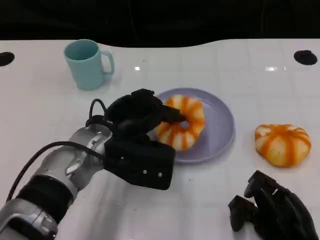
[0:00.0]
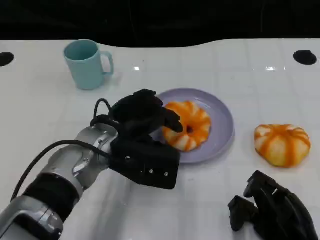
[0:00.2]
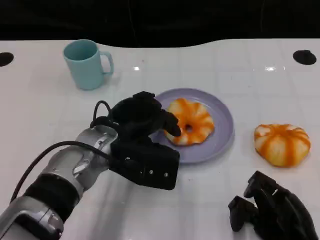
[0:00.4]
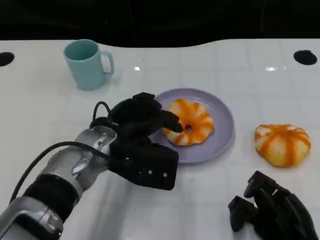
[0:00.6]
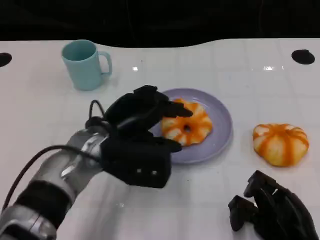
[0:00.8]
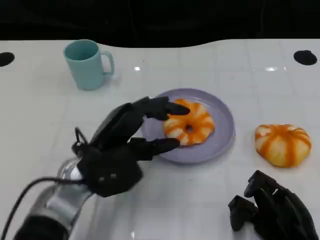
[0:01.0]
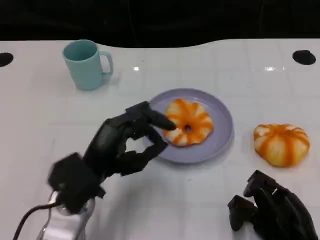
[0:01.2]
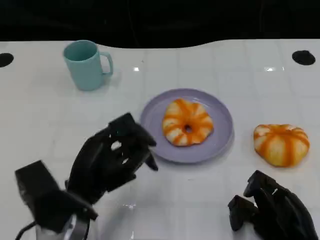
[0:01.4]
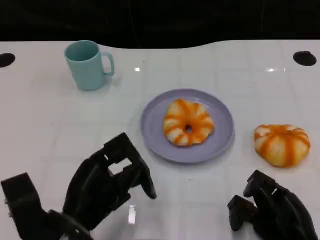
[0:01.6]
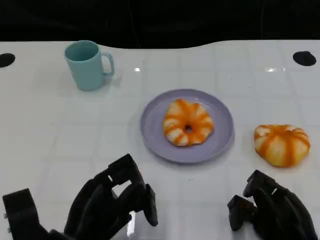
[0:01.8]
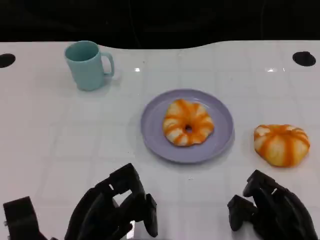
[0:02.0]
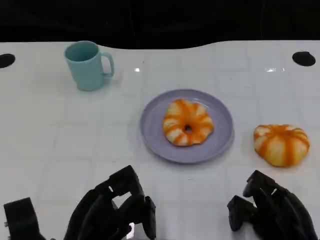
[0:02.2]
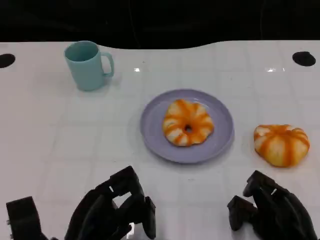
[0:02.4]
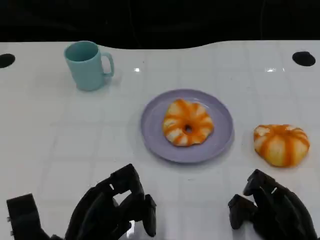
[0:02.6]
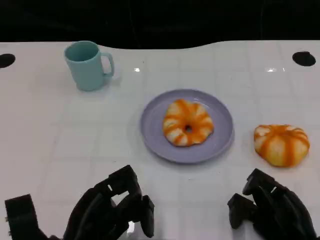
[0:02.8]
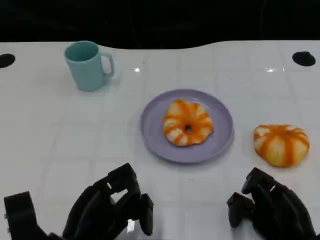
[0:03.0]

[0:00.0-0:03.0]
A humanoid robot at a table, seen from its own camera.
Task of the whole recording: Grasp the bread from the table and place it into the plate.
0:00.0 to 0:01.6: The left hand travels backward, to the left and downward by about 15 cm.
0:01.6 to 0:03.0: The hands make only small movements.

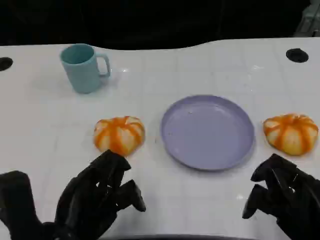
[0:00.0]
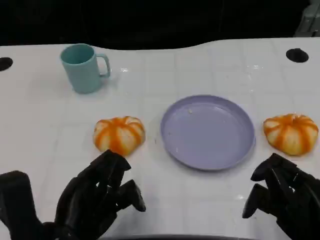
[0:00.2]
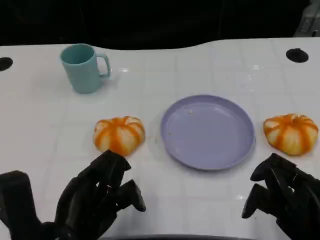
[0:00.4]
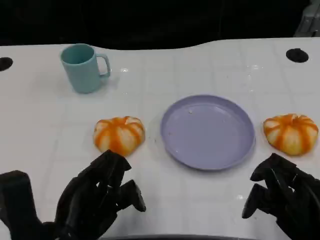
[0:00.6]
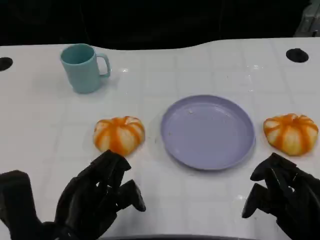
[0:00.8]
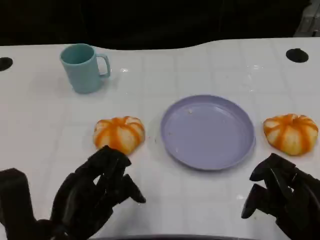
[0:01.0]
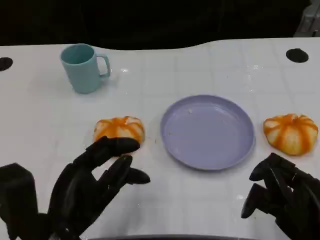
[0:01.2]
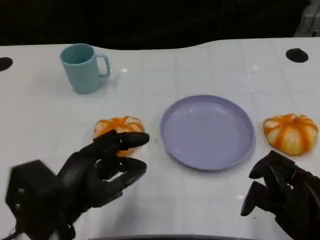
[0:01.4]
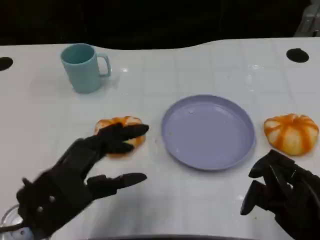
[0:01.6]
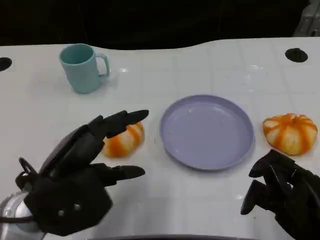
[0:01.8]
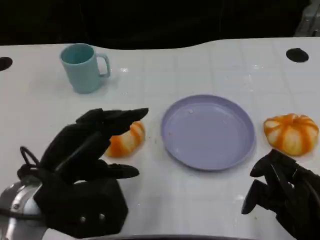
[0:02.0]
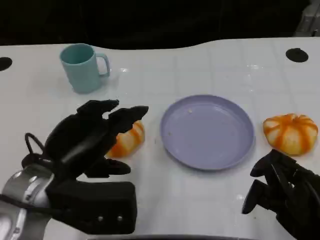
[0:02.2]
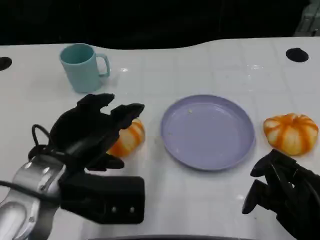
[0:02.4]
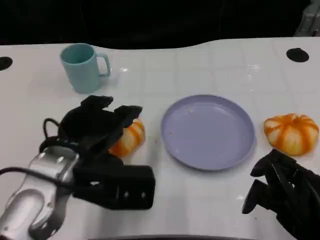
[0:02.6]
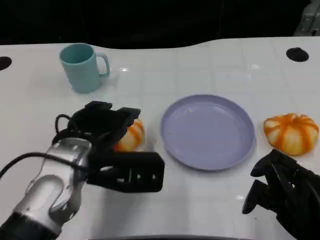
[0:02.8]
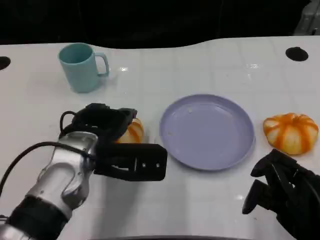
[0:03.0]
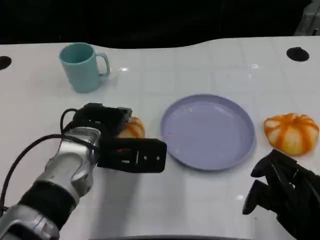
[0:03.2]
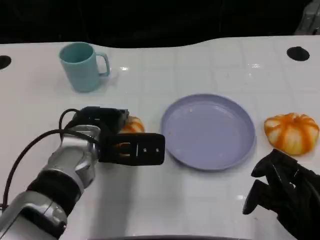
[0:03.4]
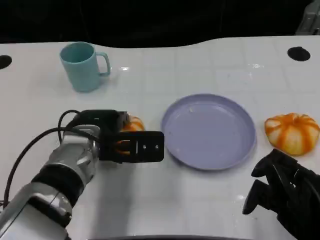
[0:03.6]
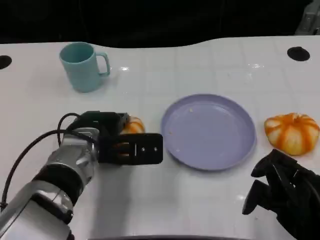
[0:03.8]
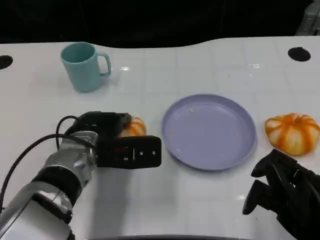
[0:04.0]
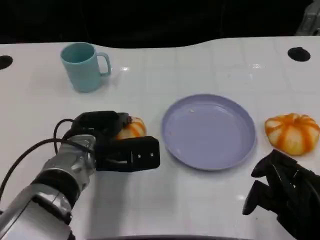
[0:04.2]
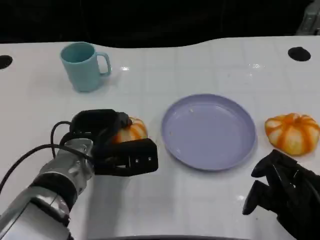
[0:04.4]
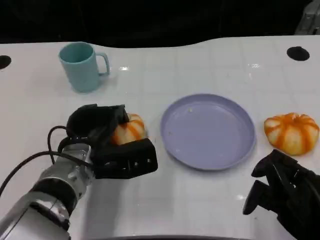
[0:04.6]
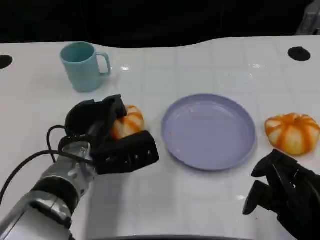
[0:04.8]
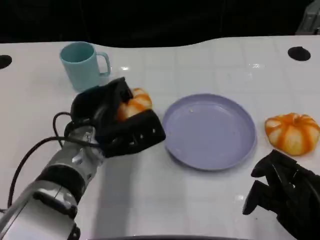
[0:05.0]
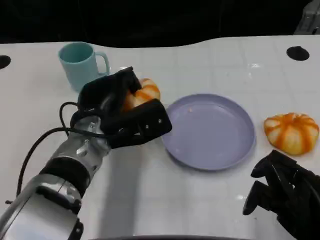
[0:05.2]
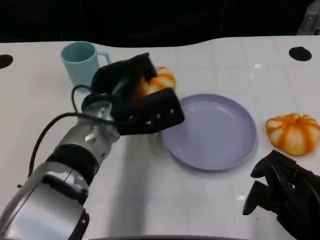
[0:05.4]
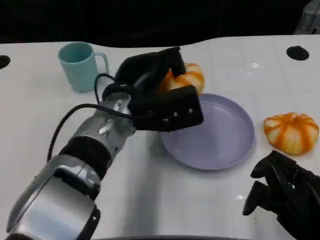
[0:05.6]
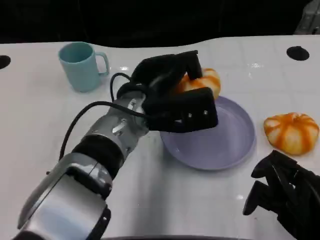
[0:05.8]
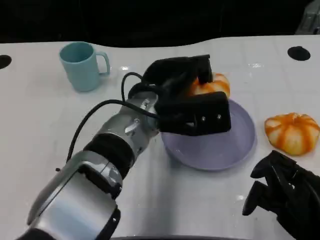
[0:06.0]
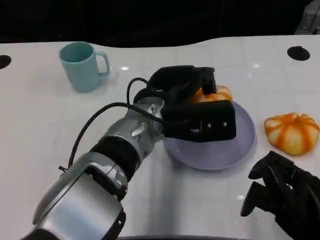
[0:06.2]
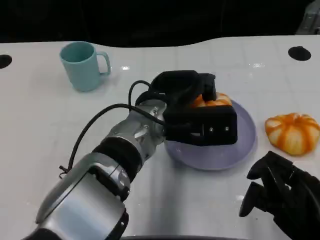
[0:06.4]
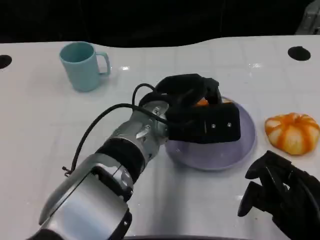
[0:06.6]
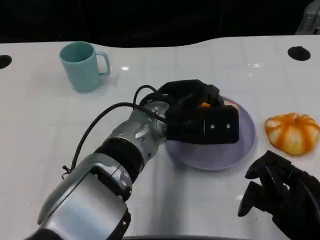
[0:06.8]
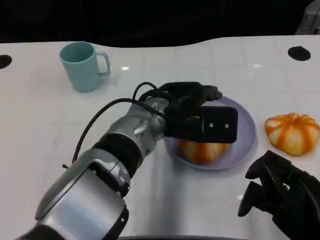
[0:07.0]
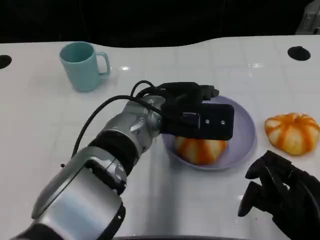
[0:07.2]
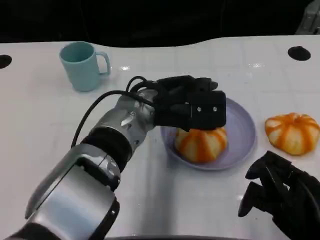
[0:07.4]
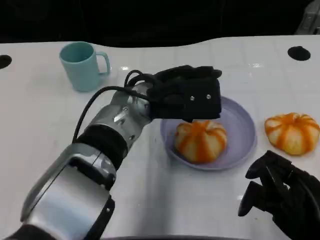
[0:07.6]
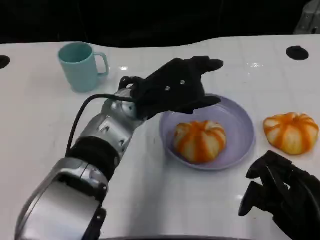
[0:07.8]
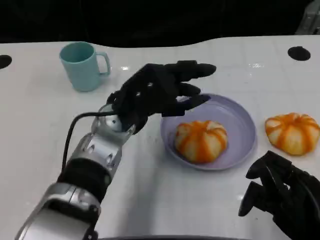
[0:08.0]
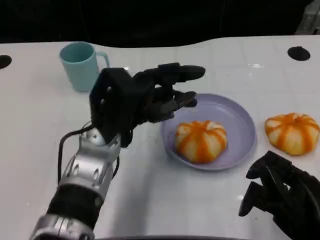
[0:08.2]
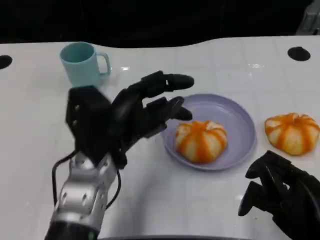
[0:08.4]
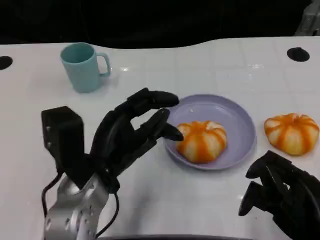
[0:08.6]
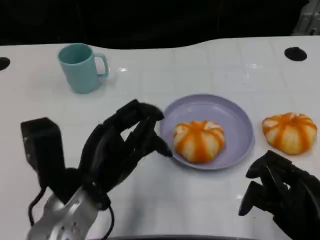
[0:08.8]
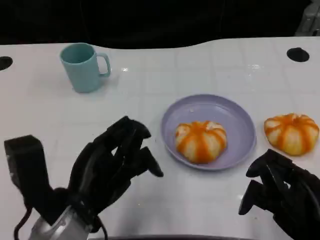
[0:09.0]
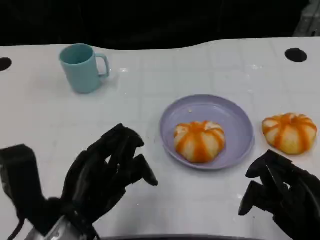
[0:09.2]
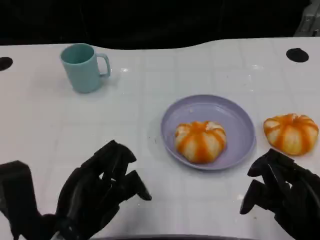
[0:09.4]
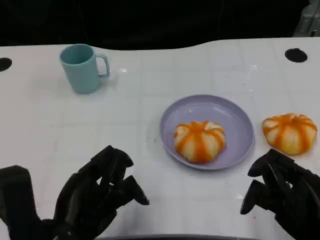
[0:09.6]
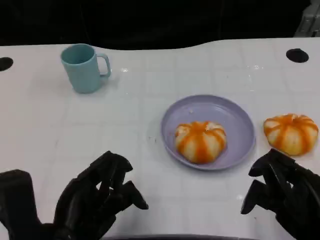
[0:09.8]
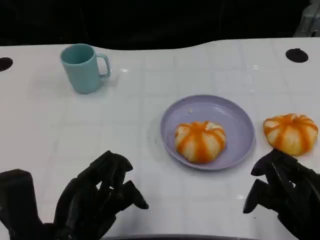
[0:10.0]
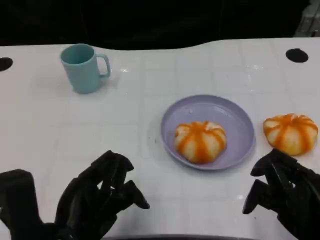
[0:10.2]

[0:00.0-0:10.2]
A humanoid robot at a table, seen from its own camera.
Task of the whole recording: Grasp the bread from the table and place it into the plate.
0:01.4 to 0:03.0: The left hand is displaced forward and to the right by about 10 cm.
0:03.0 to 0:04.4: The left hand heads downward, covering approximately 5 cm.
0:04.4 to 0:05.8: The left hand is displaced to the right and upward by roughly 10 cm.
0:07.2 to 0:08.8: The left hand shifts approximately 15 cm to the left and backward.
0:08.8 to 0:10.2: The left hand goes some 5 cm backward.

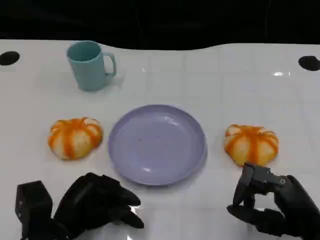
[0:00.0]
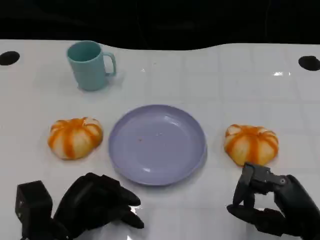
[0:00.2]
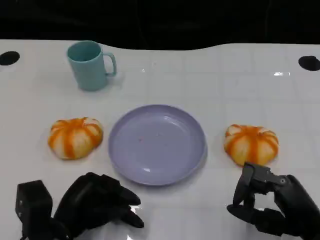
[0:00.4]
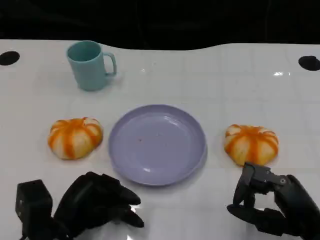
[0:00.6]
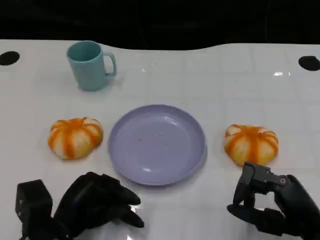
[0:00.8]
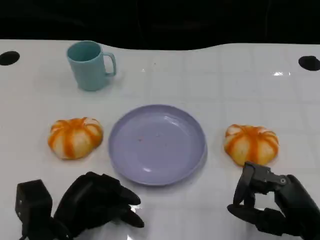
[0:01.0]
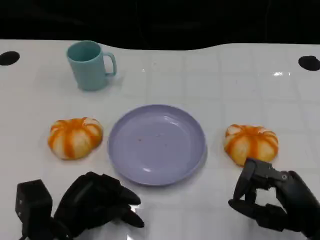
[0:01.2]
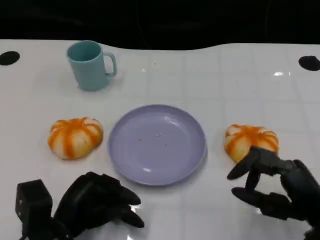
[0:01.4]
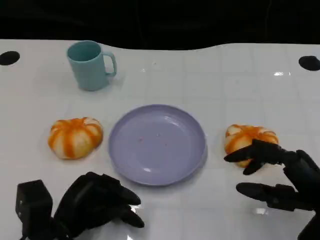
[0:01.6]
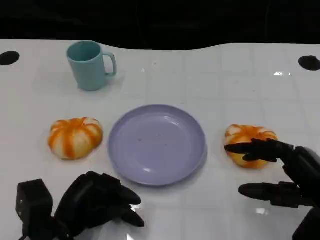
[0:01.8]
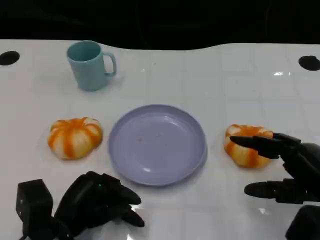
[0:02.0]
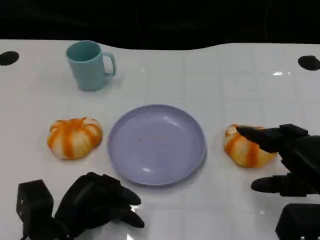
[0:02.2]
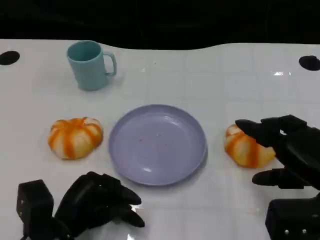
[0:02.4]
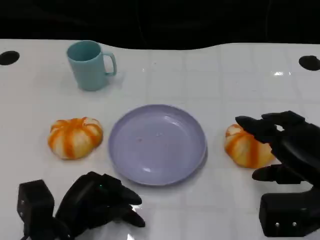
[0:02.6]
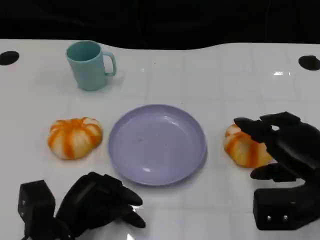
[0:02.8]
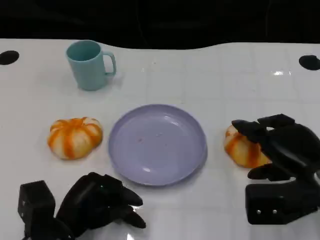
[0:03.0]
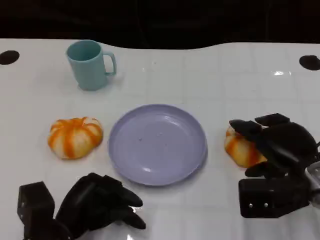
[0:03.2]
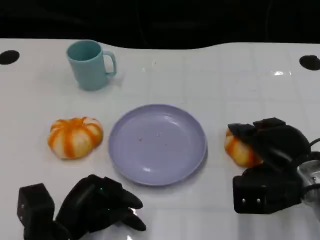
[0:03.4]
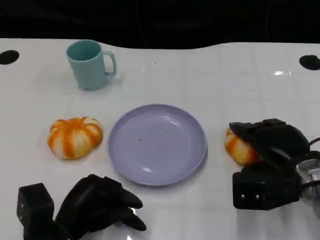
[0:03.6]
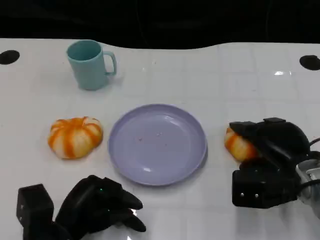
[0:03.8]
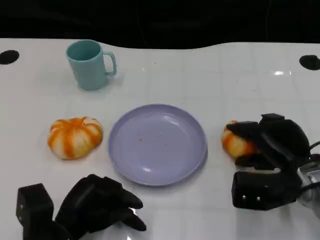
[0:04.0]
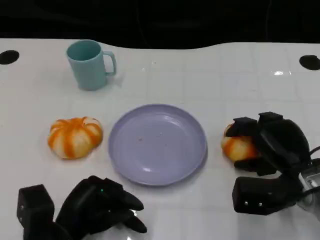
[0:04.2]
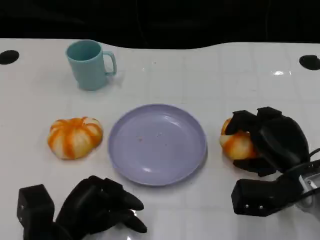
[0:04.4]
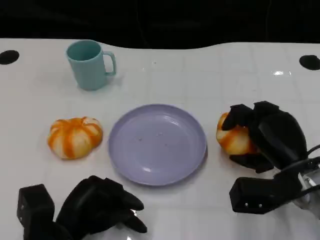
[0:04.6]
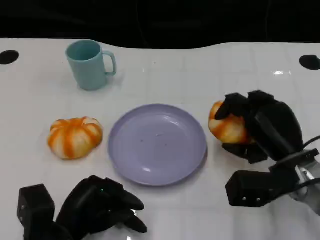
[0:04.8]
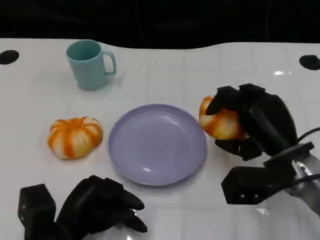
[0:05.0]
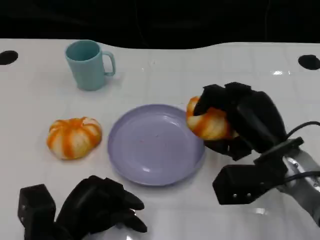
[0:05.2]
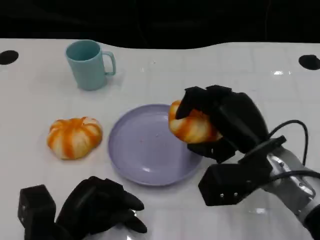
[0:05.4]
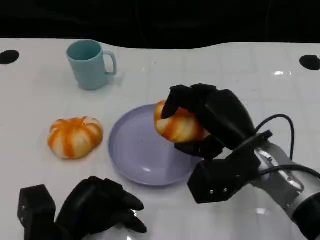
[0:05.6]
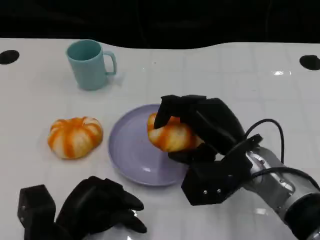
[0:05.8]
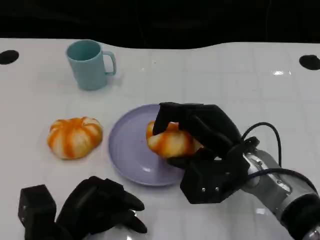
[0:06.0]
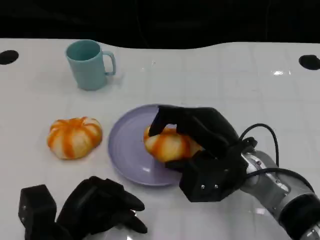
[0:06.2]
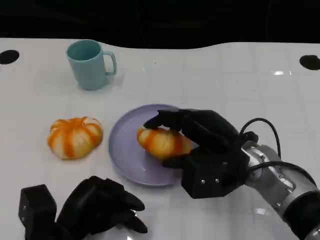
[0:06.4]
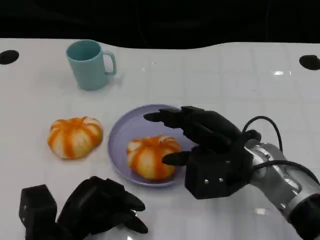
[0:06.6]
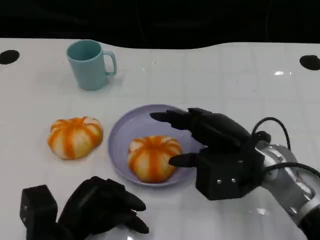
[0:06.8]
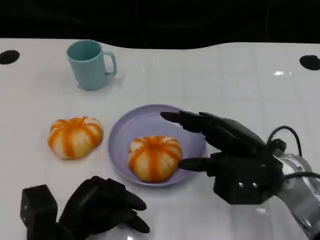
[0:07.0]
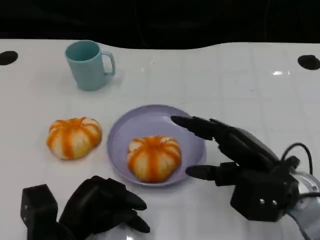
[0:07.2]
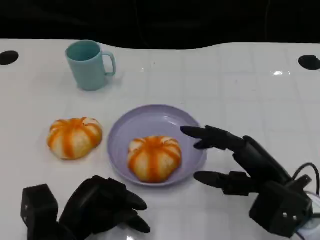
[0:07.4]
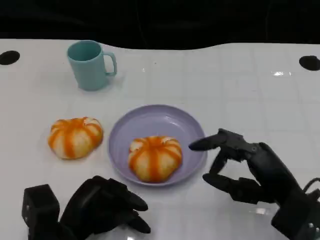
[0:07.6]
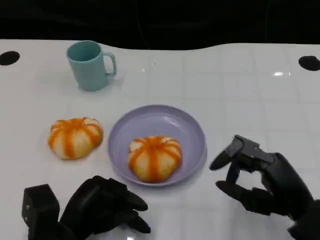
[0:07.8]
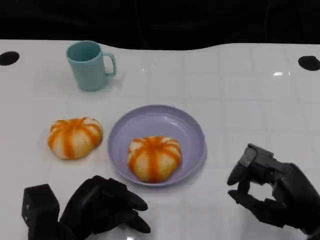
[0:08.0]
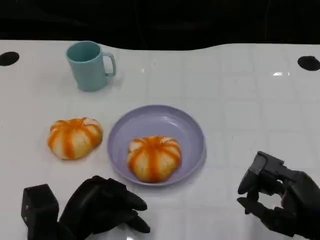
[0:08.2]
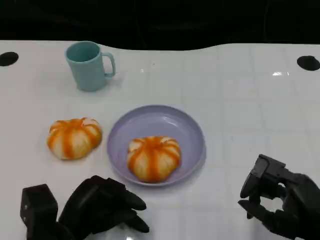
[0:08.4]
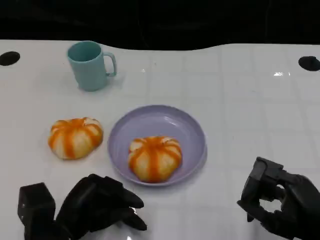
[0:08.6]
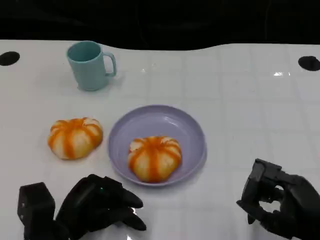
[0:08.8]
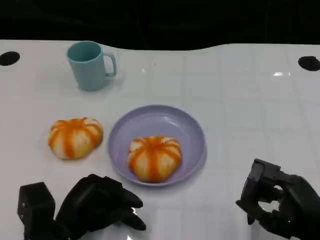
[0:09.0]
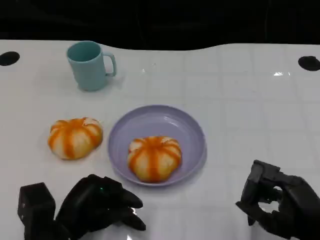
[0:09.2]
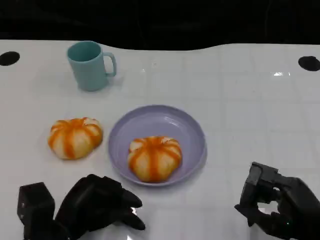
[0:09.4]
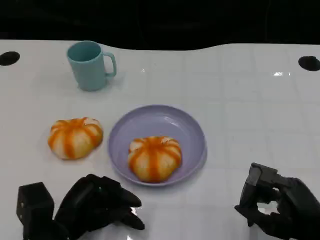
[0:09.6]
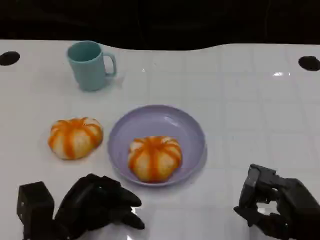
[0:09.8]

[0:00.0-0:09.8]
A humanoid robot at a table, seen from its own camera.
Task of the whole recording: Grasp the bread from the table and place it into the plate.
0:00.0 to 0:01.4: There are only small adjustments of the hands.
0:01.4 to 0:02.8: The right hand is displaced forward by some 5 cm.
0:02.8 to 0:04.2: The right hand moves approximately 5 cm.
0:04.2 to 0:05.6: The right hand is displaced to the left and upward by about 10 cm.
0:07.0 to 0:08.4: The right hand travels backward and to the right by approximately 10 cm.
0:08.4 to 0:09.8: The hands move only a little.
